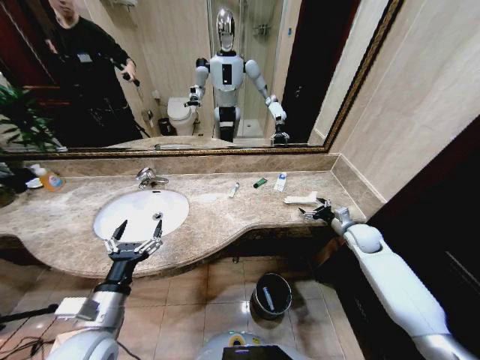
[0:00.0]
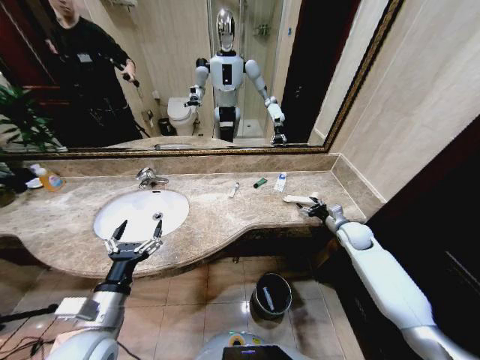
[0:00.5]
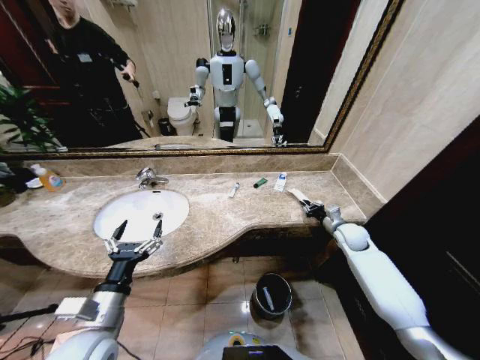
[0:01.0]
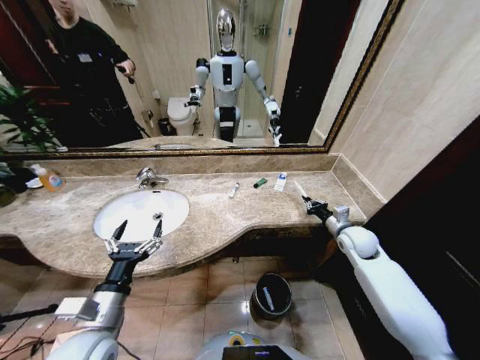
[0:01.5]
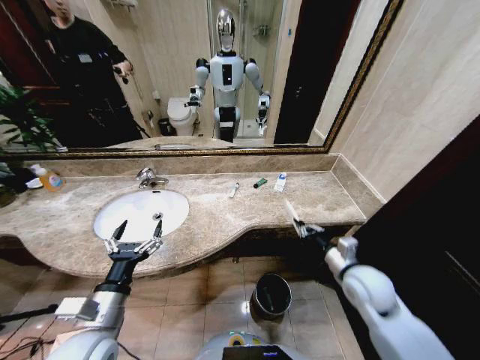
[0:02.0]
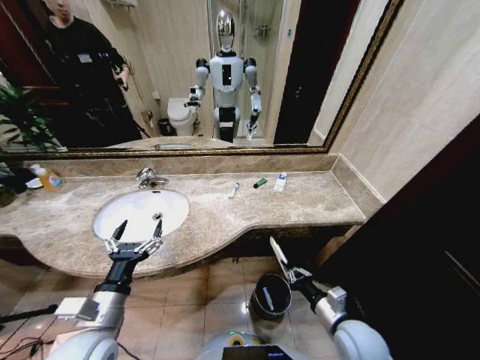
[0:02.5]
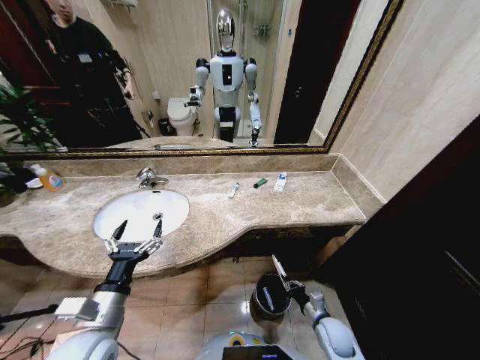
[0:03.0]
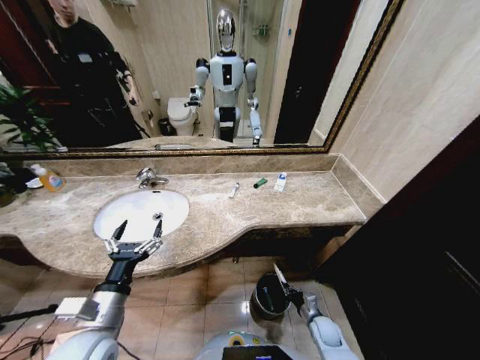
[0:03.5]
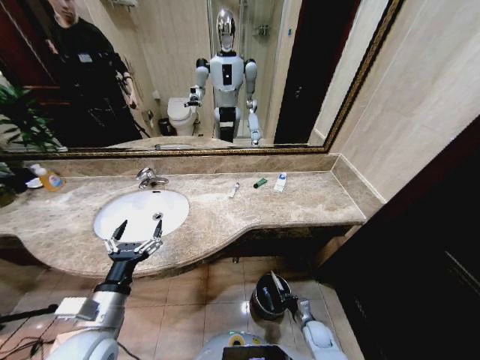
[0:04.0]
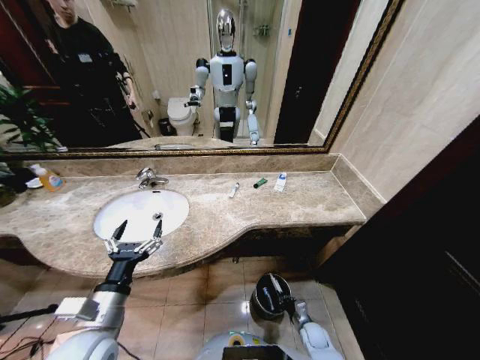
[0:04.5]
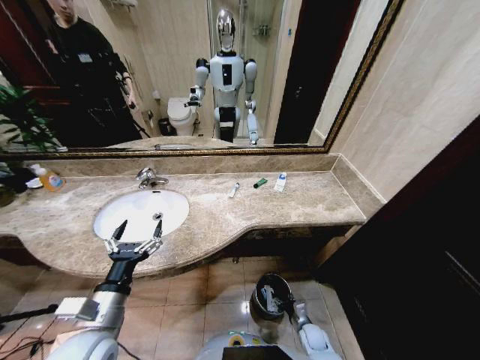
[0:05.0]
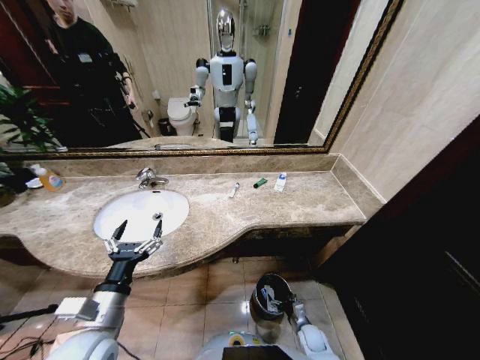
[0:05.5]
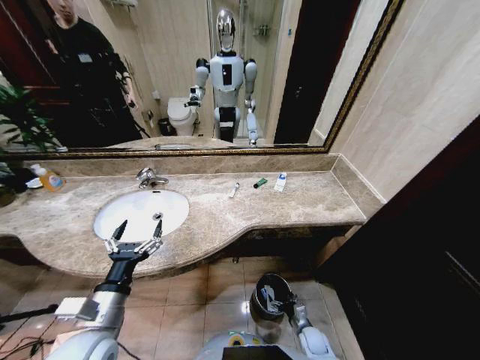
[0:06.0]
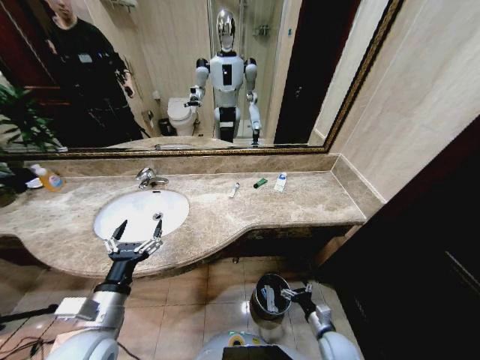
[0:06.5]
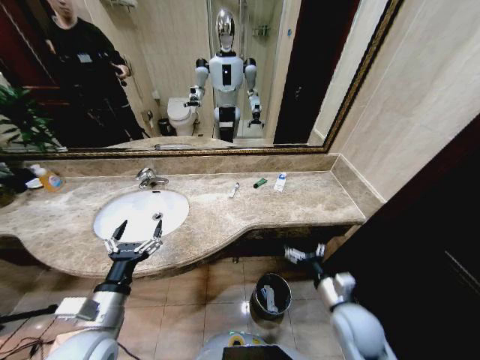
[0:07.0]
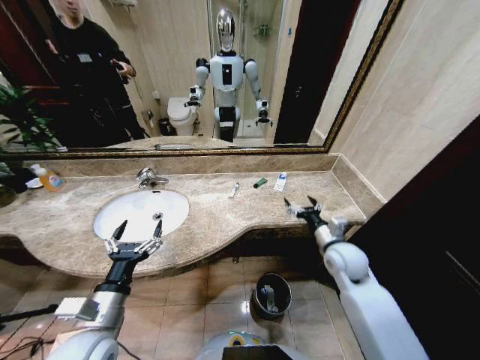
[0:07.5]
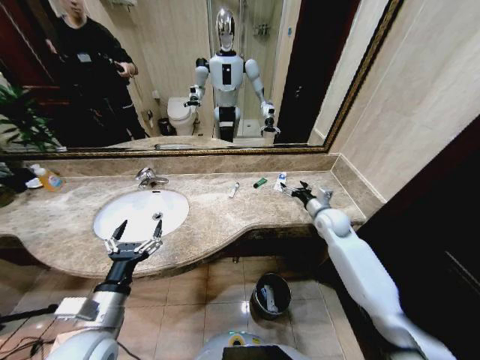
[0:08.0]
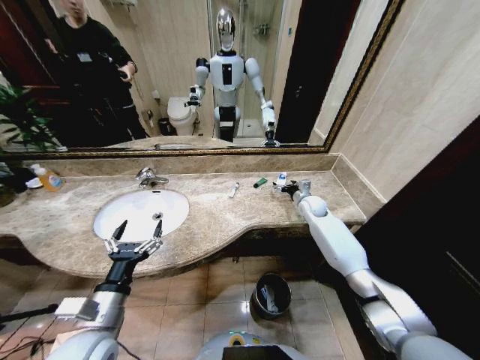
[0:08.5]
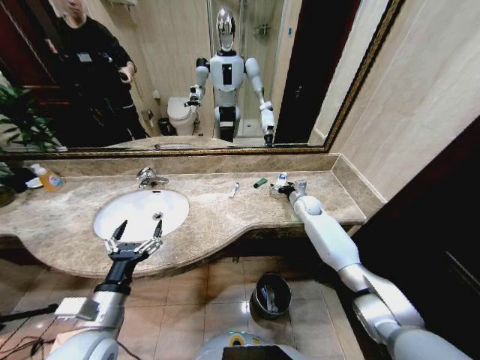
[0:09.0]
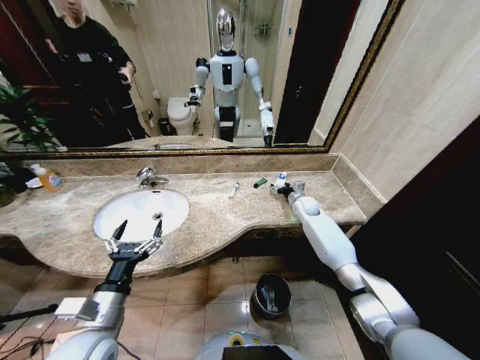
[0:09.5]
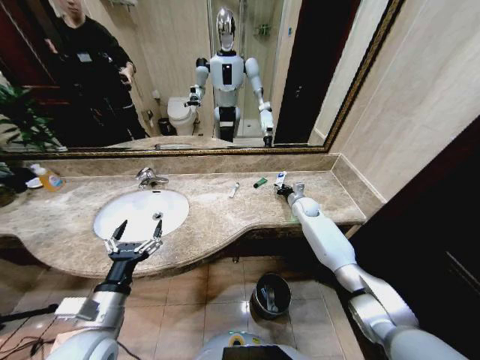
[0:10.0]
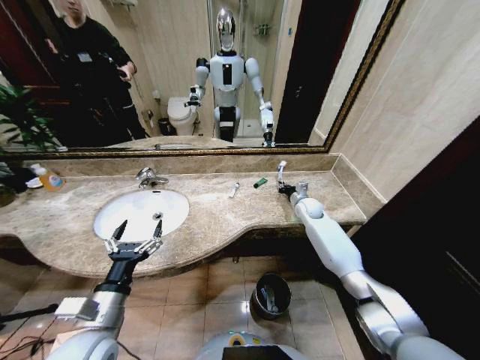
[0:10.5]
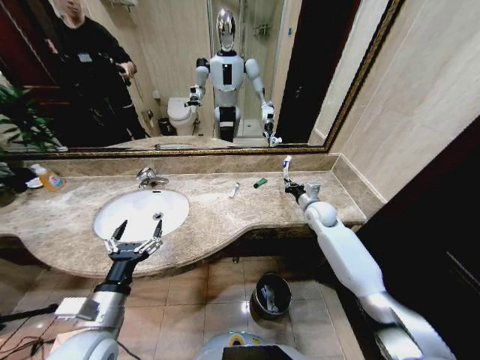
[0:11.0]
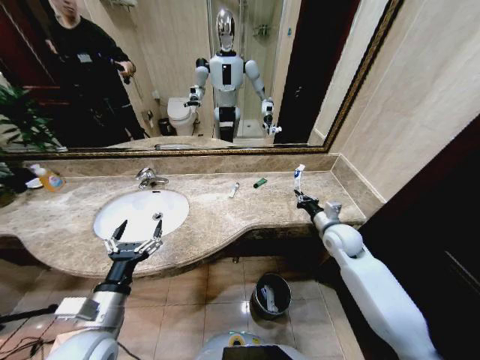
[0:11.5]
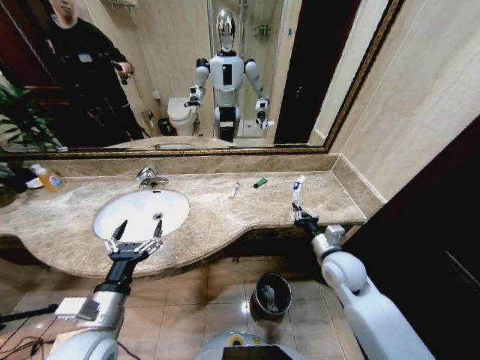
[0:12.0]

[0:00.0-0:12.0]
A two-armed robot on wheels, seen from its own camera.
Task of the whole recording: Pick up the trash from the sink and place it in the trash bin.
0.0 to 2.0 s: The right gripper shifts about 20 cm backward and to the left, and closes.
2.0 to 4.0 s: The right gripper goes some 35 cm downward.
4.0 to 6.0 s: The right gripper opens.
6.0 to 8.0 s: The right gripper shifts approximately 40 cm upward and forward.
8.0 to 10.0 s: The right gripper moves forward and downward, approximately 15 cm, and closes its fingers.
10.0 to 12.0 s: The right gripper is displaced backward by approximately 25 cm.

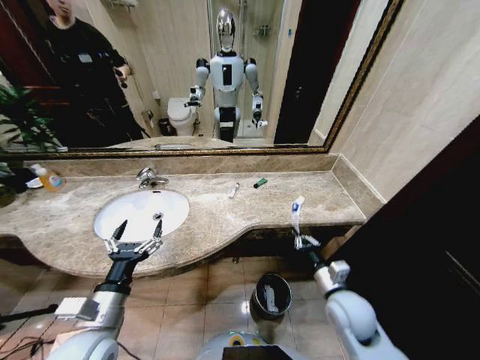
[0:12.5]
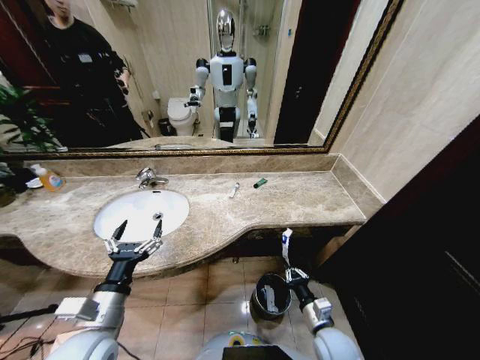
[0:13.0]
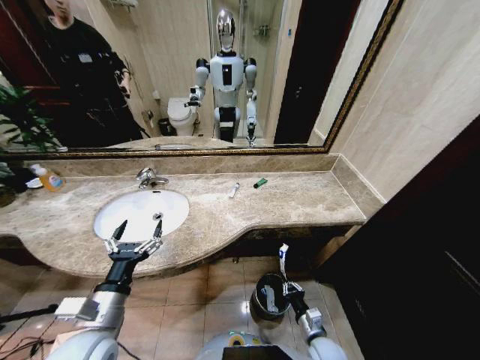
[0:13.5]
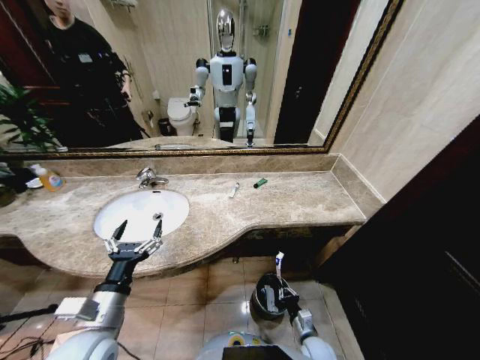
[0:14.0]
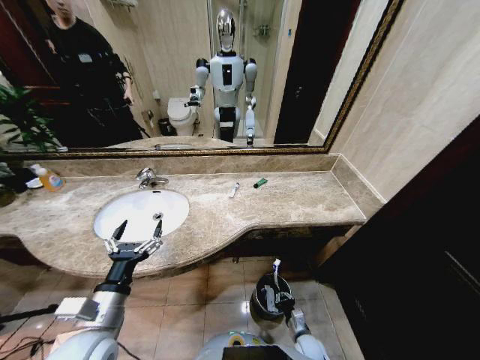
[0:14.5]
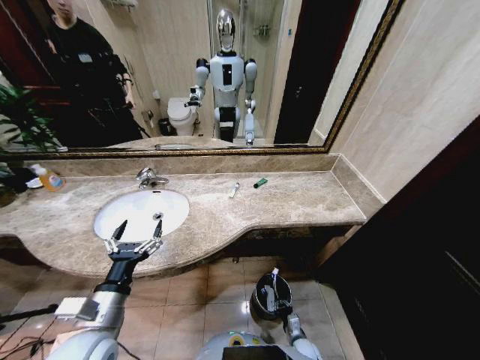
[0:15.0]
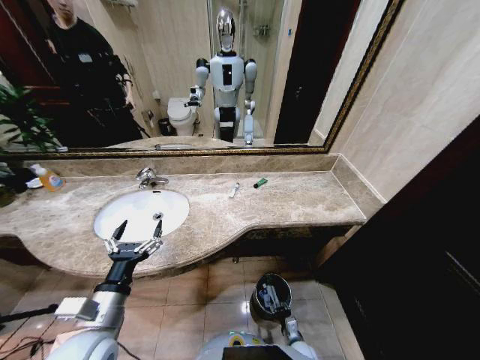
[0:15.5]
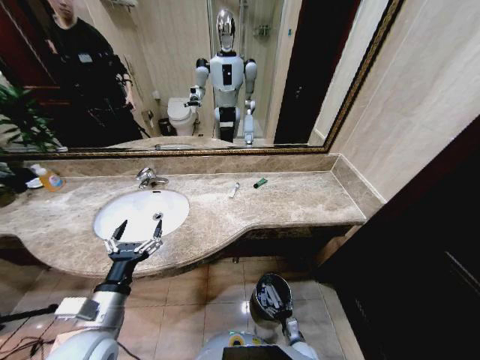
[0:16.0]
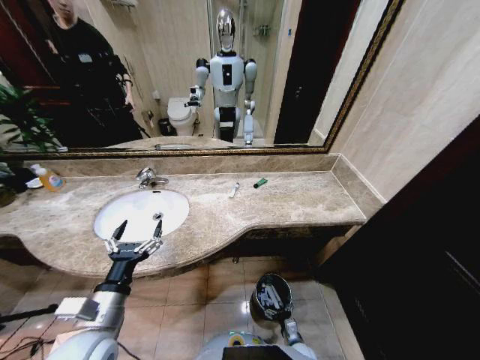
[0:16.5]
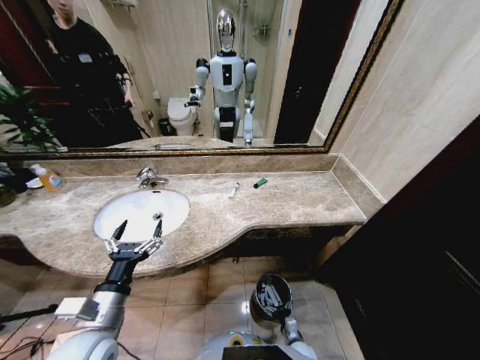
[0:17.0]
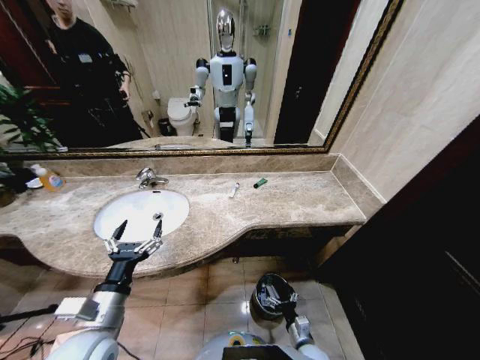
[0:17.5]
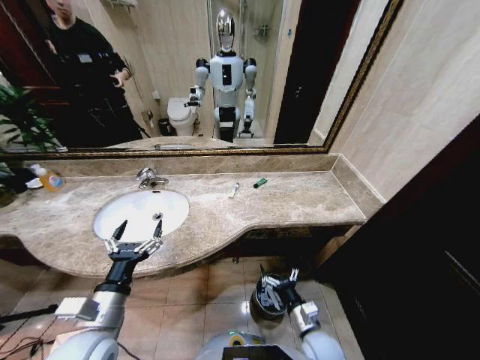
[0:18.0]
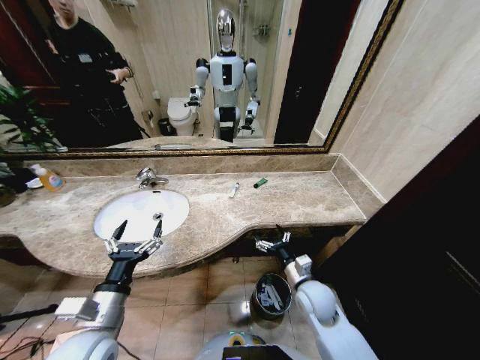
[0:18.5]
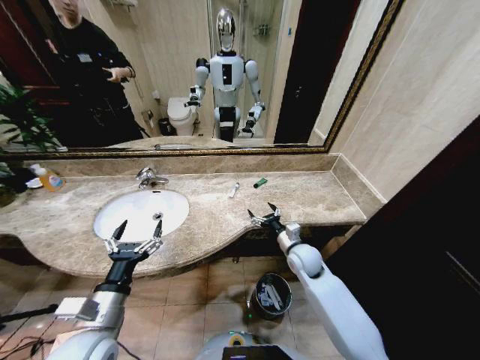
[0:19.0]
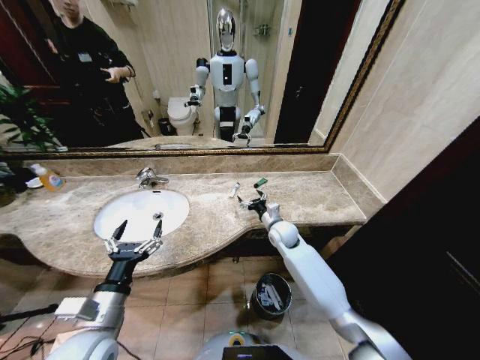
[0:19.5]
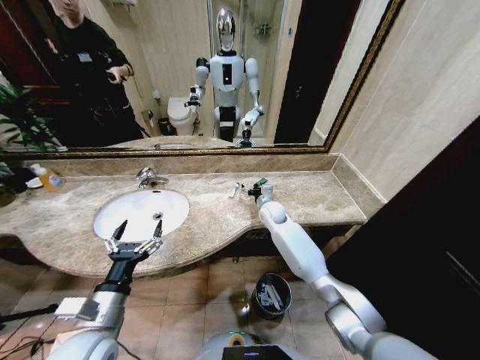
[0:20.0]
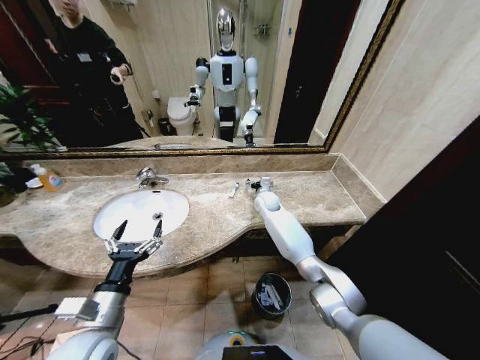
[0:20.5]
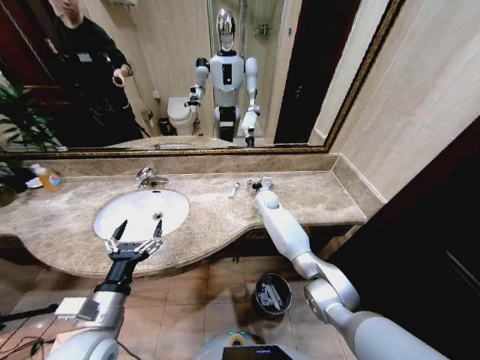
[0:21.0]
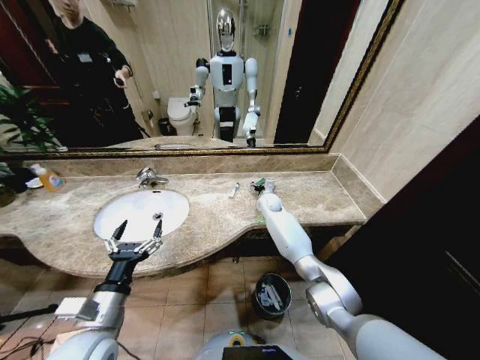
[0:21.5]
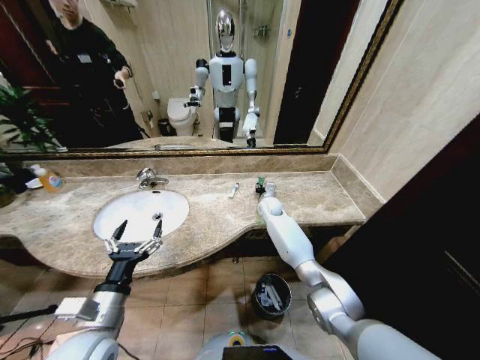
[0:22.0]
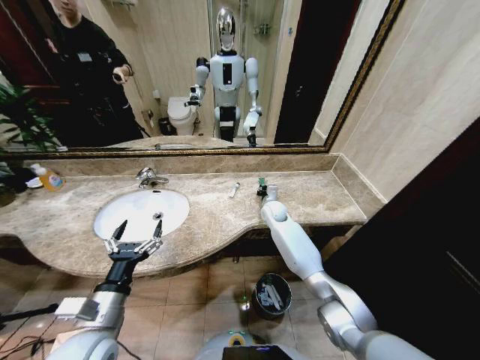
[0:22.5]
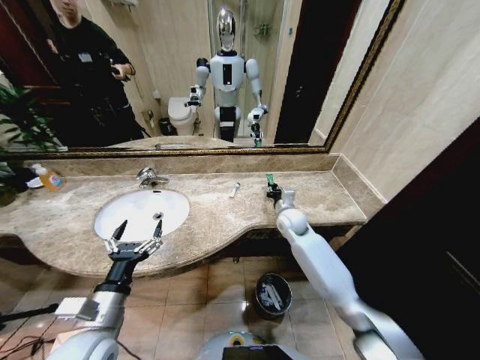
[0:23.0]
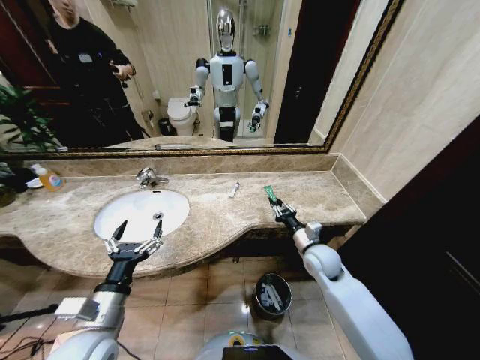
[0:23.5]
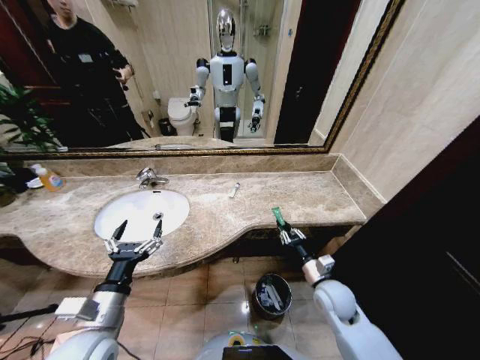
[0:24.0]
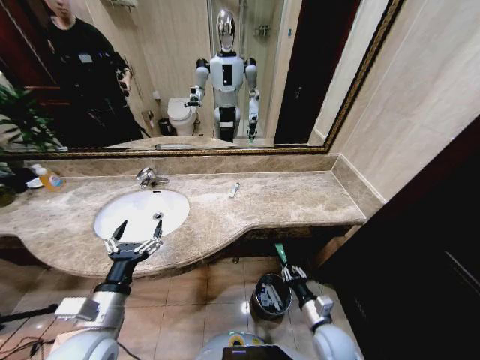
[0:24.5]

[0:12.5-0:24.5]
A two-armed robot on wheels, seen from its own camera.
Task of the whole recording: Pick up the trash from the sink and place it in the trash bin.
12.5 to 14.5 s: The right gripper moves downward, roughly 25 cm.
14.5 to 16.5 s: The right gripper travels downward by approximately 5 cm, and opens up.
16.5 to 18.5 s: The right gripper goes about 30 cm upward.
18.5 to 20.5 s: The right gripper is displaced forward by some 35 cm.
20.5 to 22.5 s: The right gripper closes up.
22.5 to 24.5 s: The right gripper moves backward, about 40 cm.

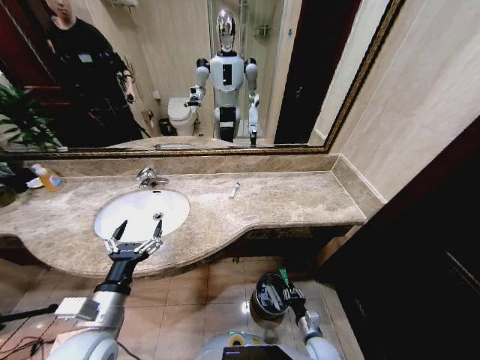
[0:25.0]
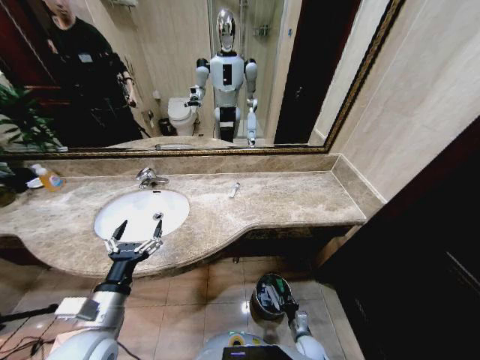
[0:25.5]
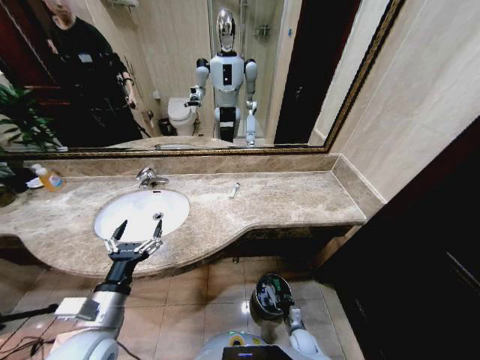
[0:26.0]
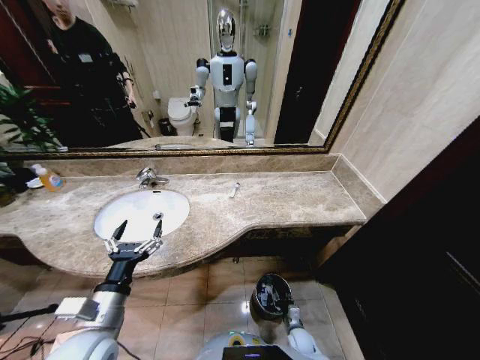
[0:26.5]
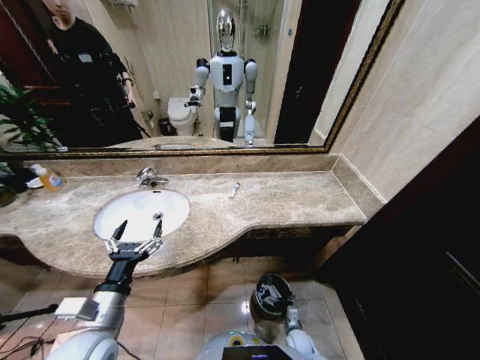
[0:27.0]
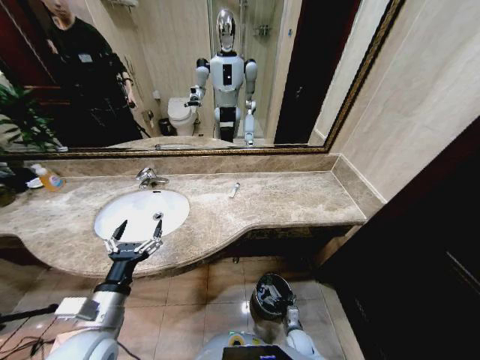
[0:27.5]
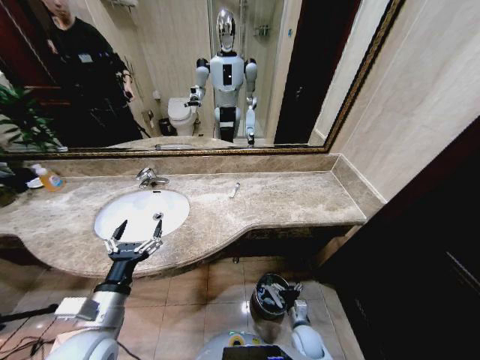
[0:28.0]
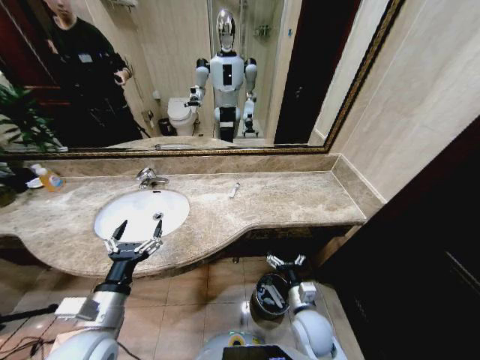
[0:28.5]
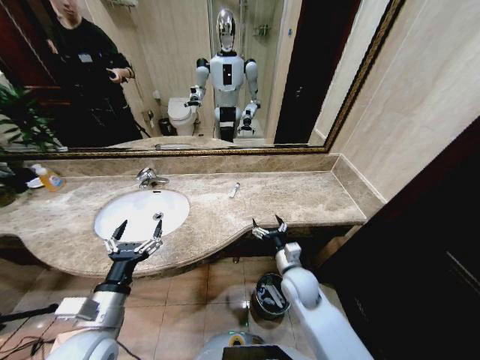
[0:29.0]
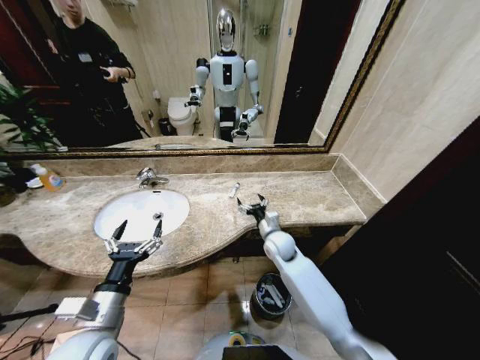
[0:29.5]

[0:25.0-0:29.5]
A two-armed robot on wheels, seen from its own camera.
Task of the whole recording: Pick up the trash from the sink and place it in the trash bin.
25.0 to 27.0 s: The right gripper heads downward, covering some 10 cm, and opens.
27.0 to 29.5 s: The right gripper travels upward and forward by roughly 40 cm.
